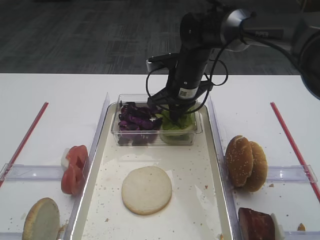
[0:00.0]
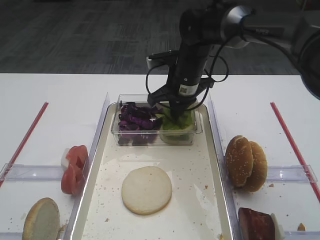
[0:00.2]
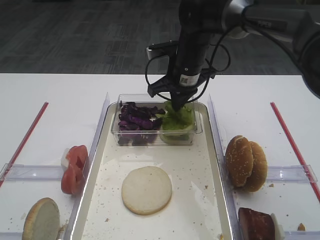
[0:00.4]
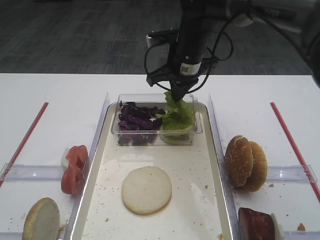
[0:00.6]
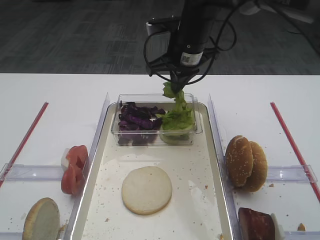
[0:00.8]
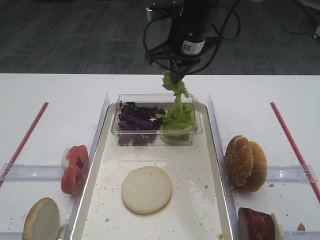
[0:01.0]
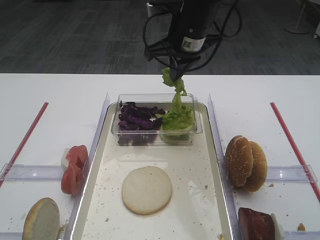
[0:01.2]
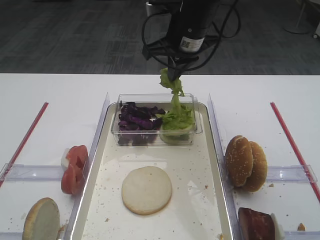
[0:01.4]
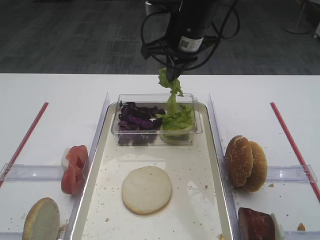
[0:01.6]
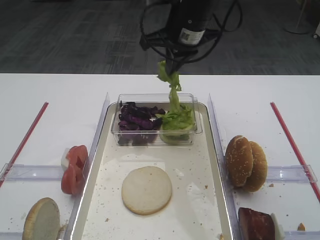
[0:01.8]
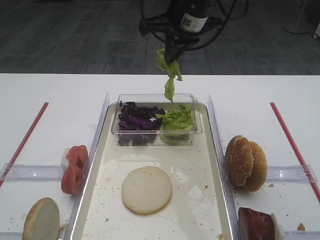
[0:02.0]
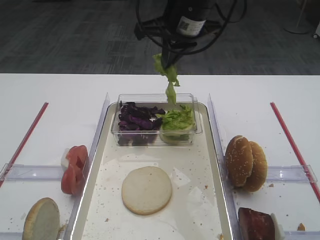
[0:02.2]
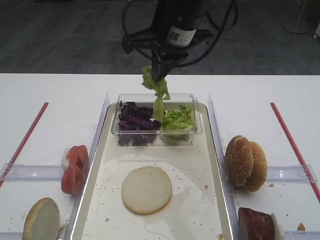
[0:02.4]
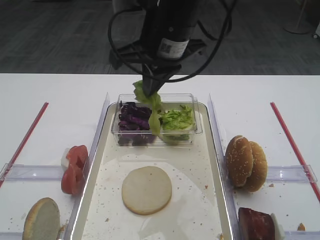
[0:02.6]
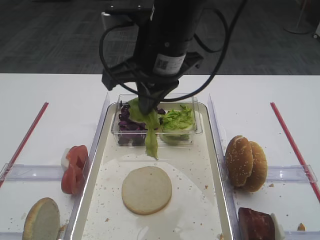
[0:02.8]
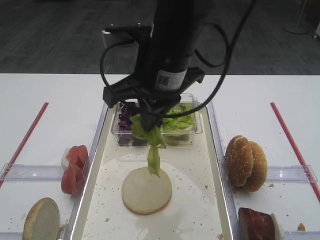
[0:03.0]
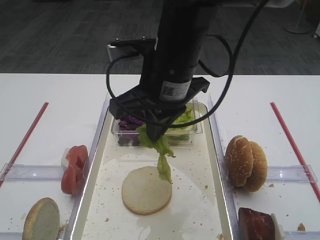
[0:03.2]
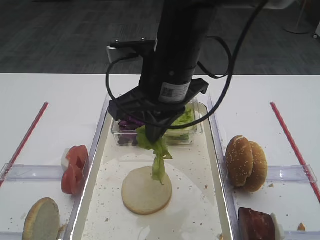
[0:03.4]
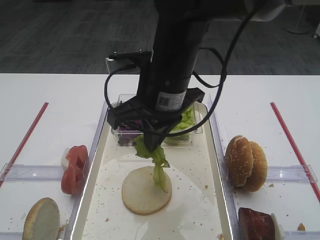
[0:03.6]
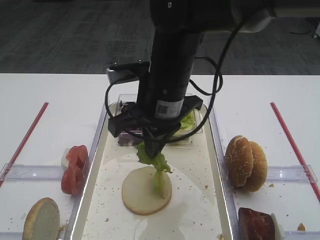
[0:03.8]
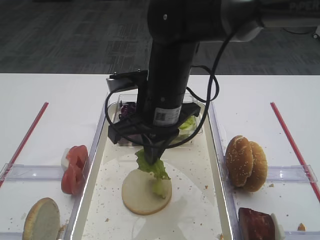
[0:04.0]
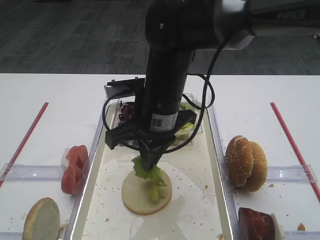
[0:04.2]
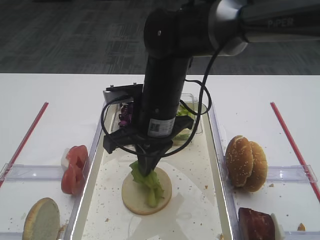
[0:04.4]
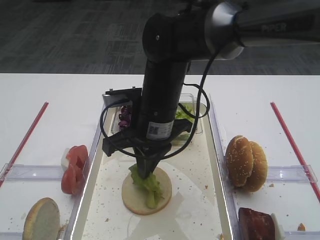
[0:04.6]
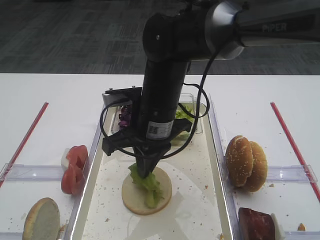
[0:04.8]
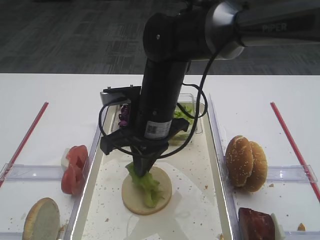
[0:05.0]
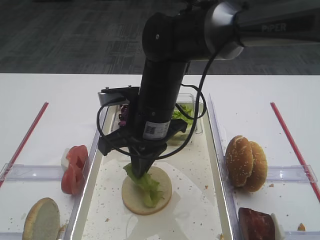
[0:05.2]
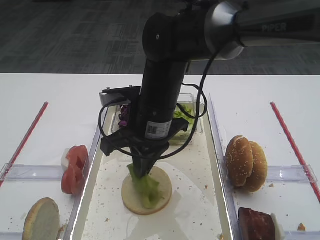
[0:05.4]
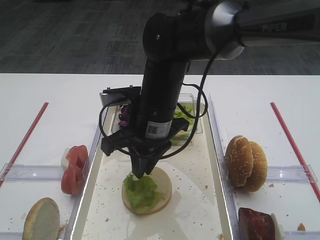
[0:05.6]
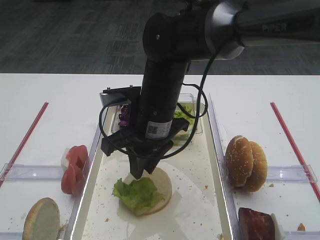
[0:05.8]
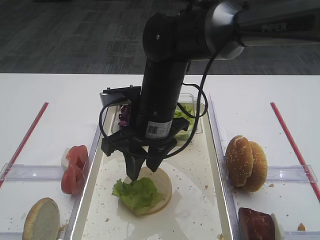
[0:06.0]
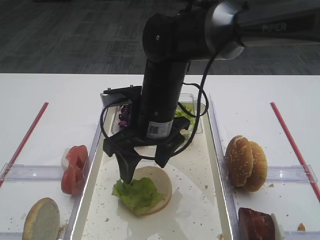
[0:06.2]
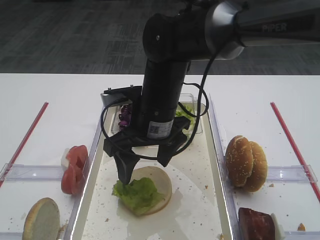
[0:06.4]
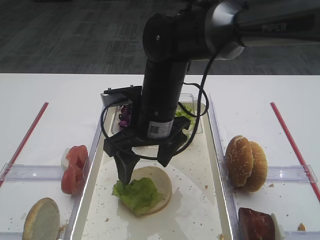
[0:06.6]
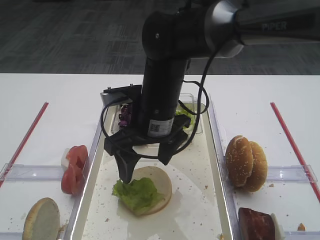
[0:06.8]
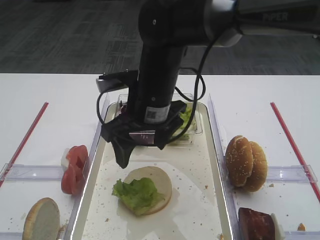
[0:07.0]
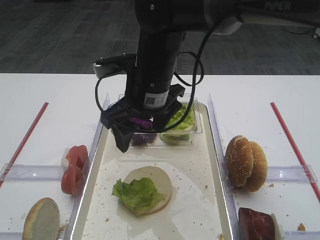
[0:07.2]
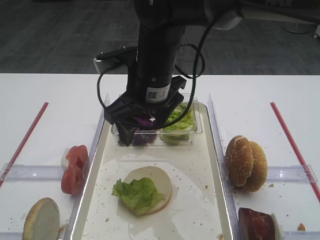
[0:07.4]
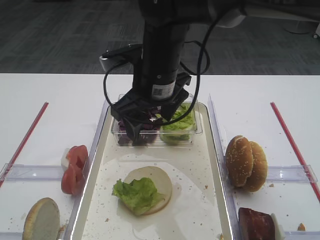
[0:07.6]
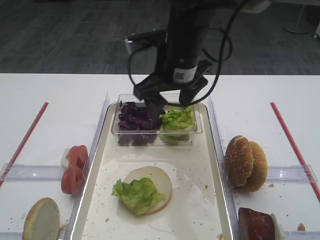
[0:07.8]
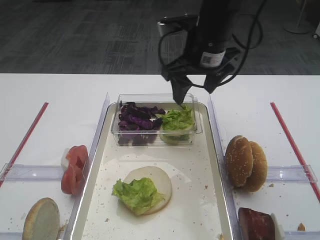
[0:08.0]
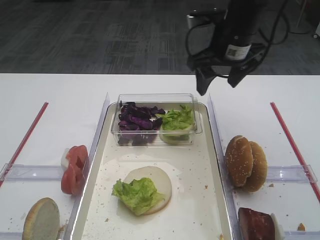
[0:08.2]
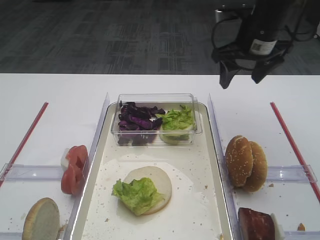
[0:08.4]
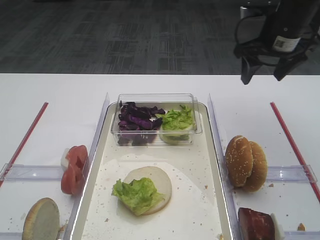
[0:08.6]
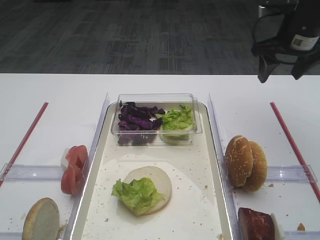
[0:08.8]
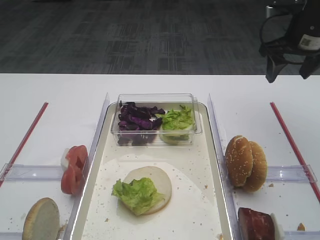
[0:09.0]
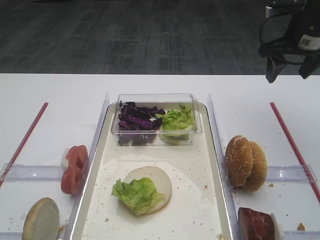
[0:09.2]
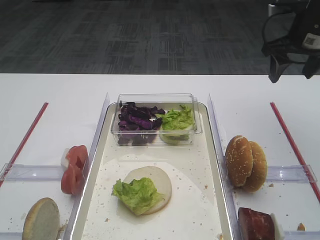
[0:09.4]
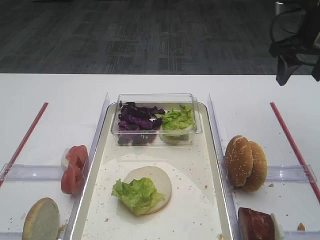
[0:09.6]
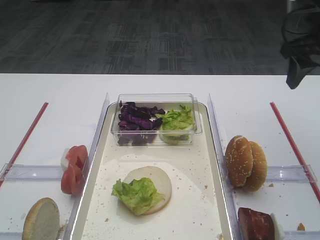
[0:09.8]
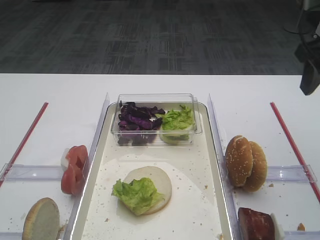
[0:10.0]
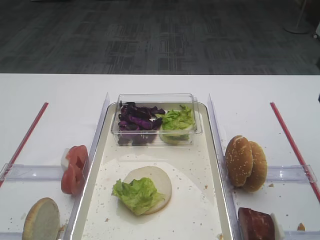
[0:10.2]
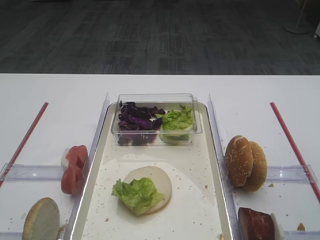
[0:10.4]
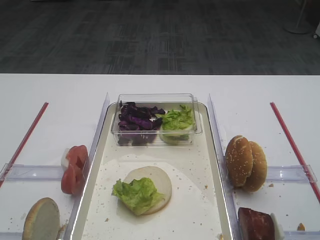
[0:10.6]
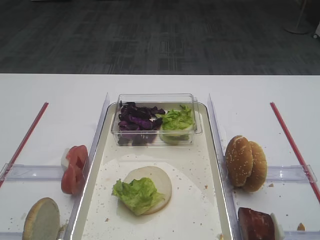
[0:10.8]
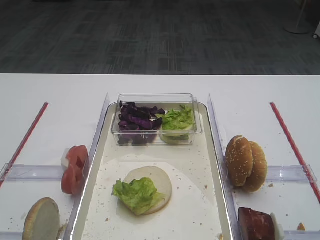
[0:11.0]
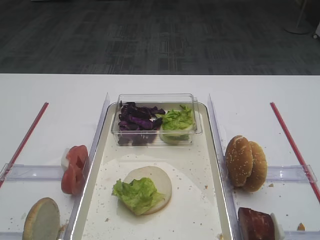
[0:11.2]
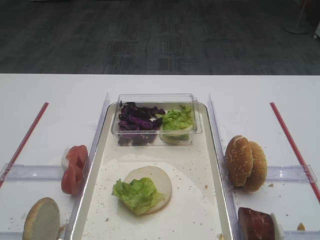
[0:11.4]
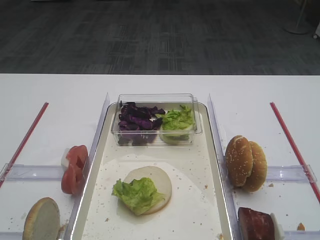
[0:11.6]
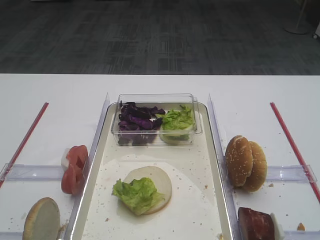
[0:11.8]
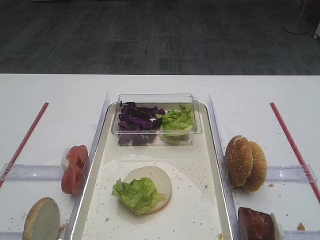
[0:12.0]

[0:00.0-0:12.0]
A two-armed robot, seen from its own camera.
Step, 0:01.0 to 0:06.2: Place the lettuce leaf on the bread slice with the right gripper.
0:00.0 to 0:01.6: The right gripper shifts roughly 10 cm upward.
0:01.6 to 0:03.0: The right gripper heads backward, covering about 15 cm.
0:03.0 to 0:04.4: The right gripper travels downward by some 10 cm.
0:04.4 to 0:06.0: The right gripper opens its fingers.
0:06.0 to 0:07.6: The right gripper changes place by roughly 5 cm, and opens.
0:07.6 to 0:09.0: The right gripper travels to the right by some 25 cm.
0:09.0 to 0:10.4: The right gripper is displaced backward by about 25 cm.

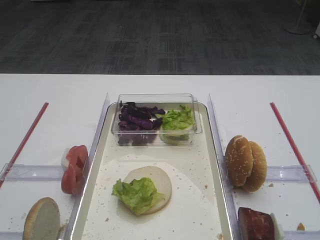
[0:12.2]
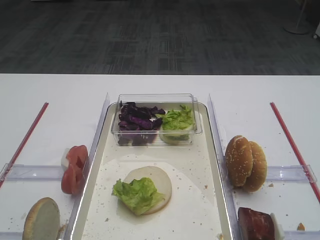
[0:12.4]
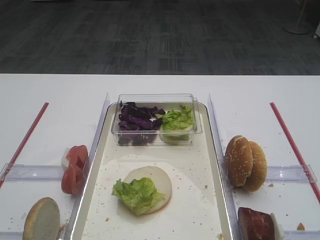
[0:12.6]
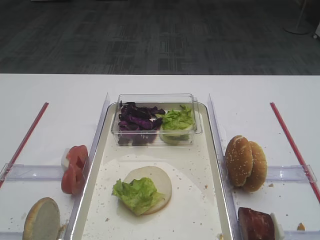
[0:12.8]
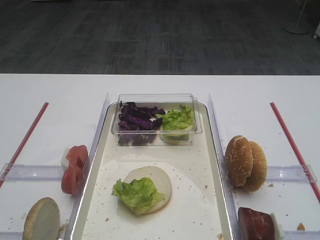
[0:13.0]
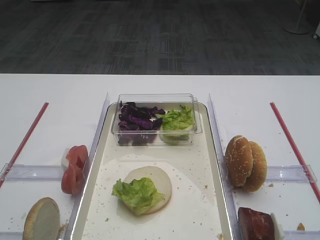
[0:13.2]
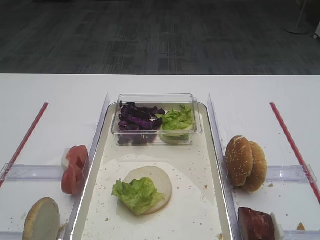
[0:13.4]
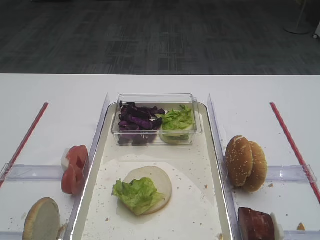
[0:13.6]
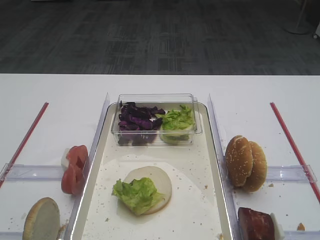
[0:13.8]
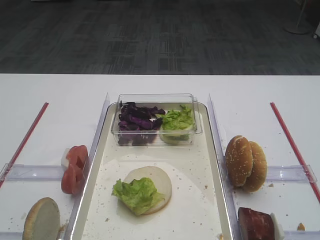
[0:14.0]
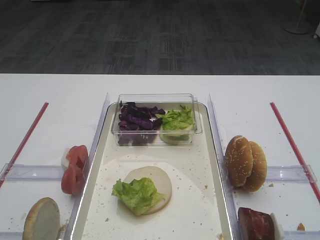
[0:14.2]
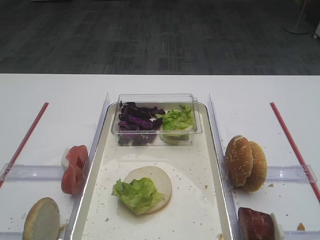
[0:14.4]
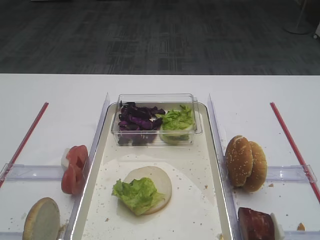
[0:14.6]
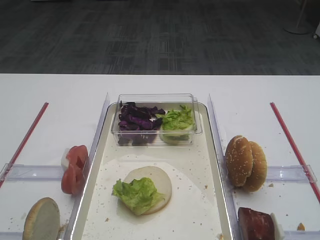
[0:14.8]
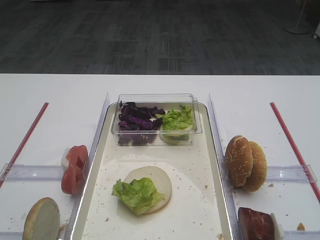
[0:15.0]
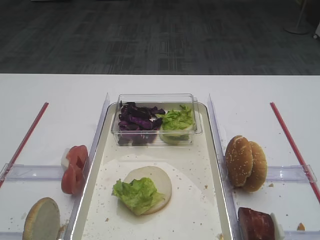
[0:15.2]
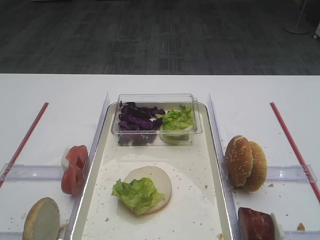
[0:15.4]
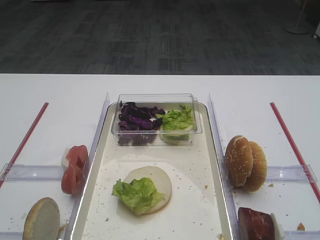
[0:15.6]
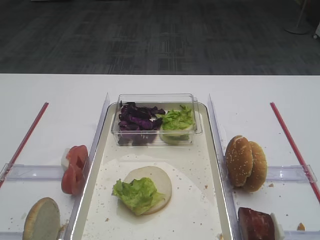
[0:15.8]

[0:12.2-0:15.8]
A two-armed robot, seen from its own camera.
0:12.2 to 0:15.8: Both grippers stay about where they are.

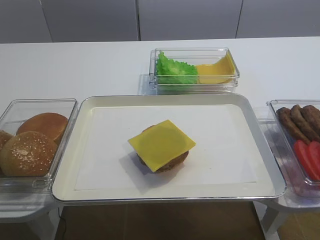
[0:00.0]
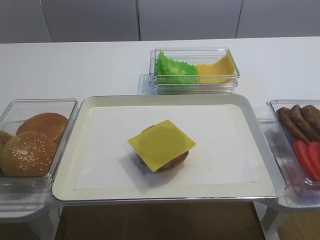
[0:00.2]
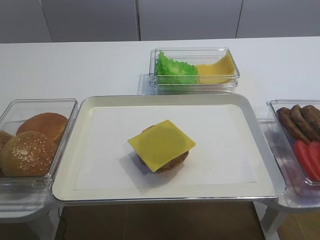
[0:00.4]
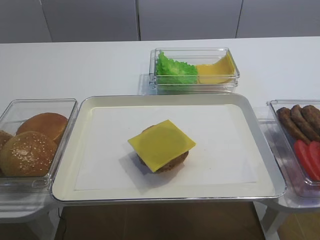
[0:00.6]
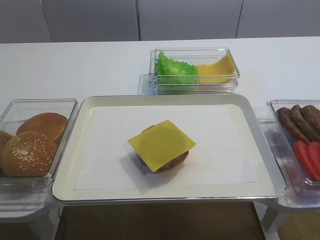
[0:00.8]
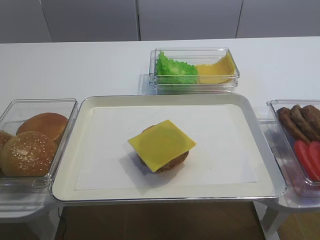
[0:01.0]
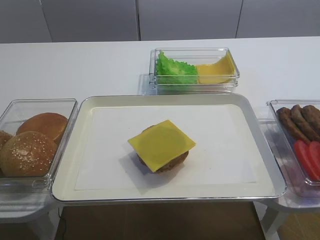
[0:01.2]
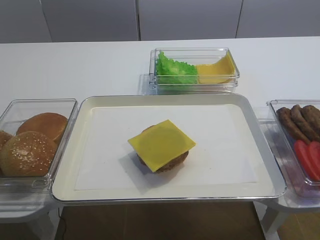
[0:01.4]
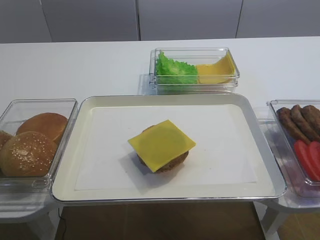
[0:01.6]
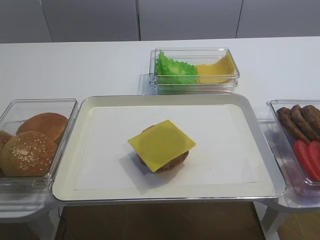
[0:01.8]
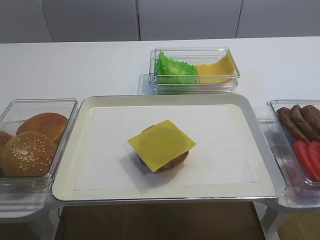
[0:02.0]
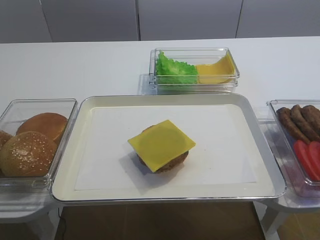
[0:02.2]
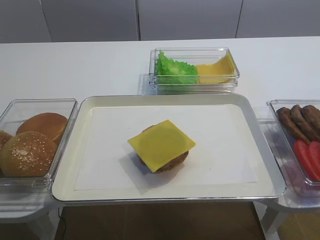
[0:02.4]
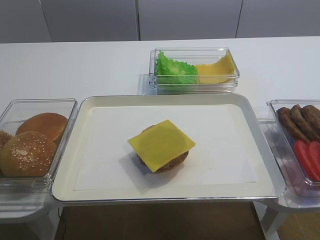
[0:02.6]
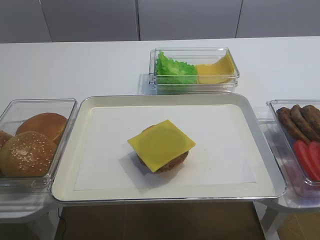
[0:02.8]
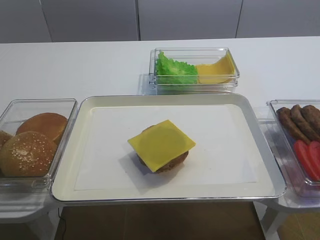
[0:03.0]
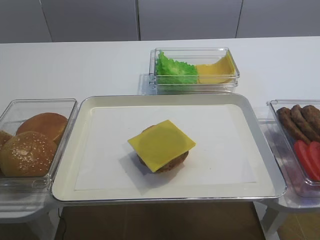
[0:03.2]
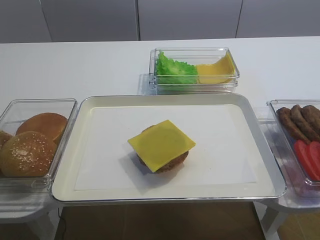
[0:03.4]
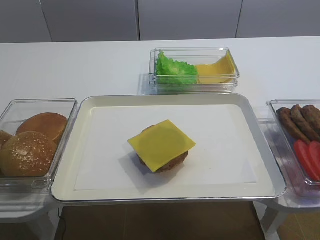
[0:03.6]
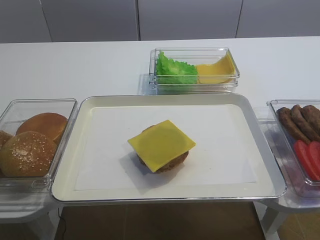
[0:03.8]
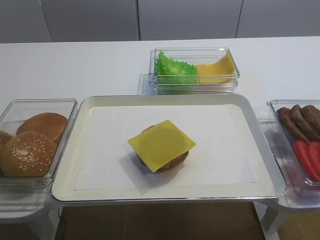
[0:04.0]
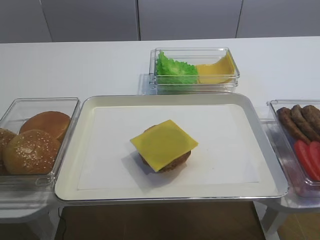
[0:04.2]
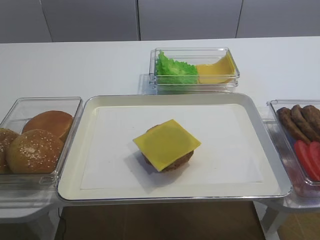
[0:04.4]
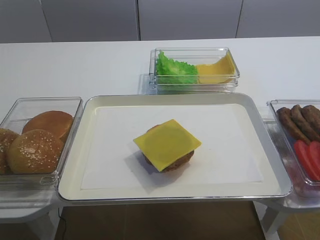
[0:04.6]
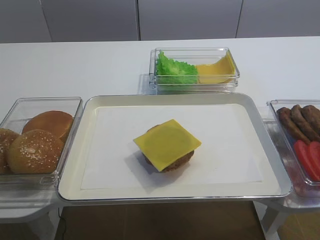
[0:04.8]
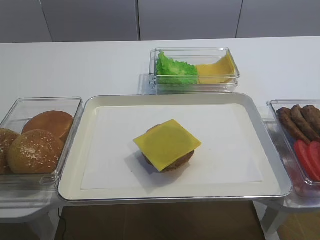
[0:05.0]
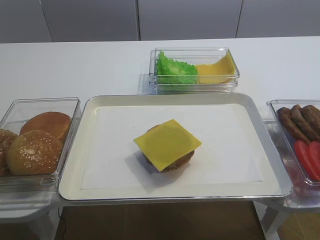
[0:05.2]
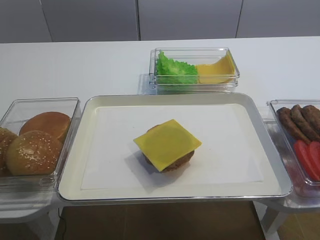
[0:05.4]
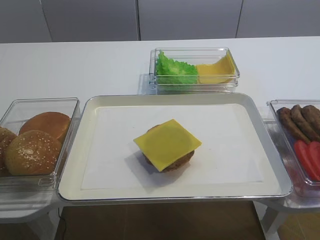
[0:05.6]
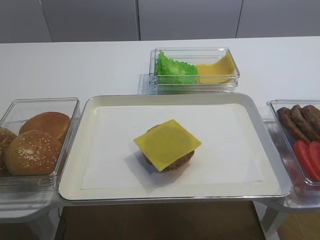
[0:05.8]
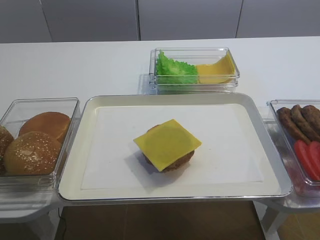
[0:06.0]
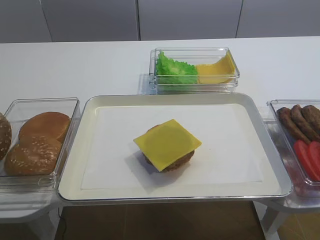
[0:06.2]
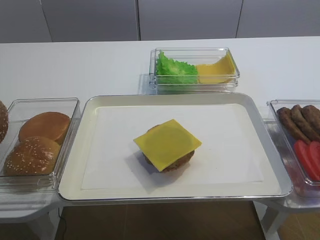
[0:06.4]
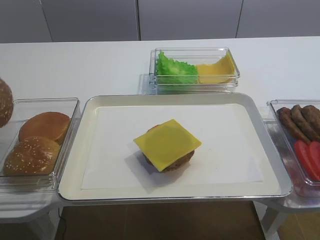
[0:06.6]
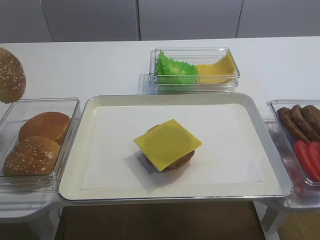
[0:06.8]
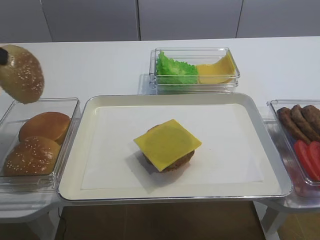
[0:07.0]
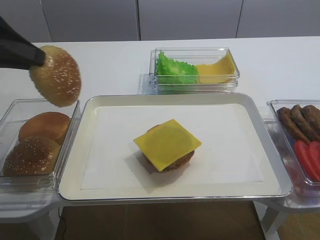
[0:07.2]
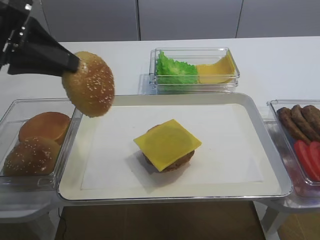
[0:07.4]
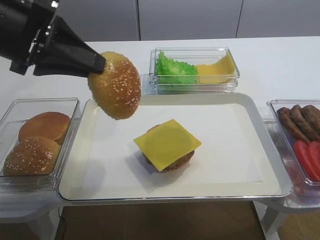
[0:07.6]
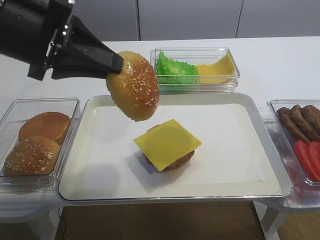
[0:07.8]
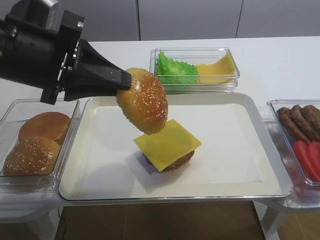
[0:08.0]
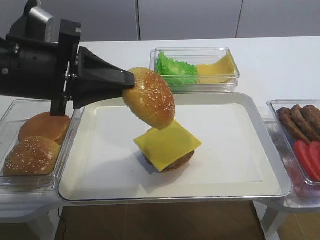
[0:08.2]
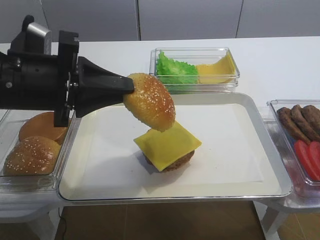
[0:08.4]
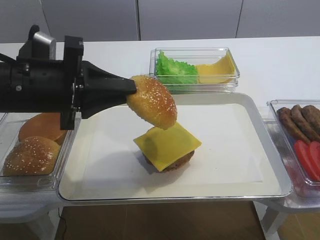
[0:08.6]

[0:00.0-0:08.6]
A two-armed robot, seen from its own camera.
Step, 0:00.0 to 0:07.0: Pick up the hamburger lid with the left gripper.
0:02.8 to 0:04.4: The left gripper is displaced downward, to the left and forward by roughly 10 cm.
0:04.4 to 0:05.8: The left gripper closes up.
0:05.8 to 0:07.2: The left gripper moves upward and to the right, approximately 10 cm.
0:07.2 to 0:08.6: The left gripper shifts some 15 cm to the right and downward.
